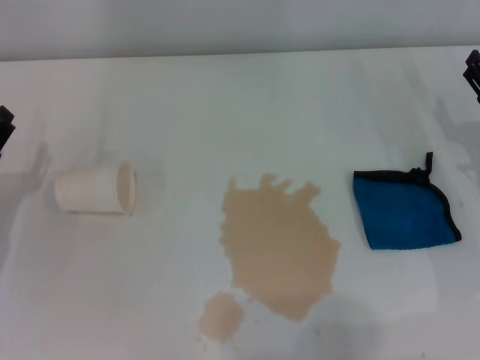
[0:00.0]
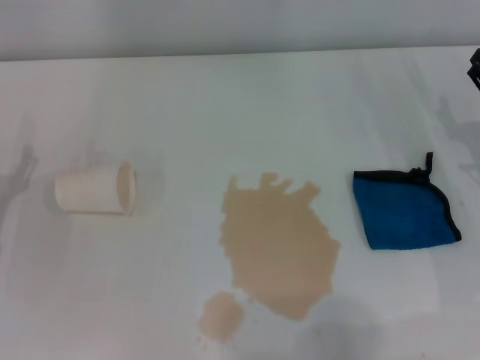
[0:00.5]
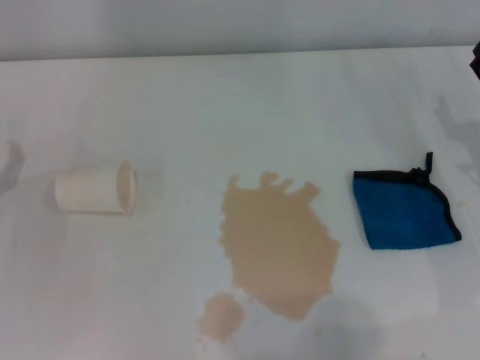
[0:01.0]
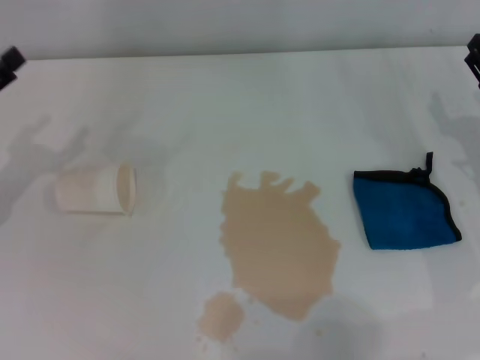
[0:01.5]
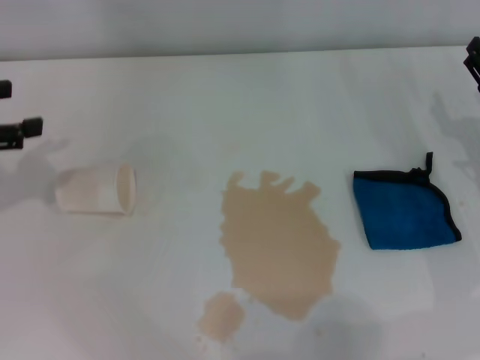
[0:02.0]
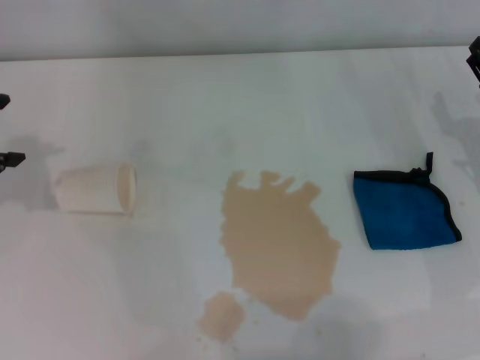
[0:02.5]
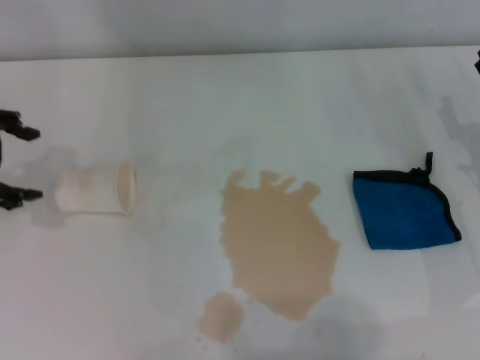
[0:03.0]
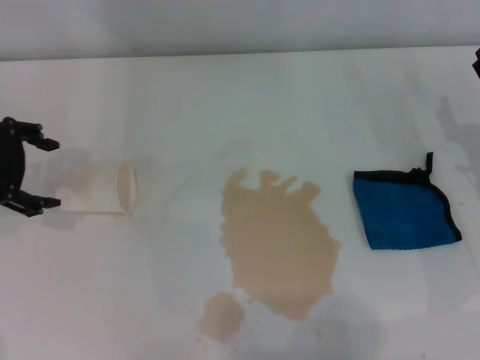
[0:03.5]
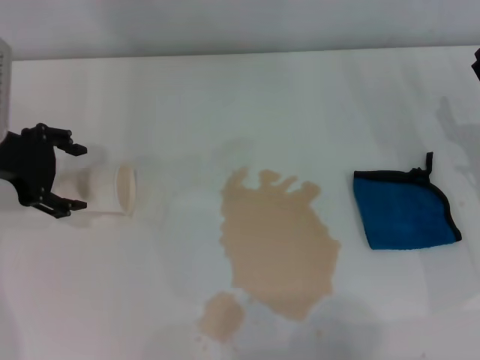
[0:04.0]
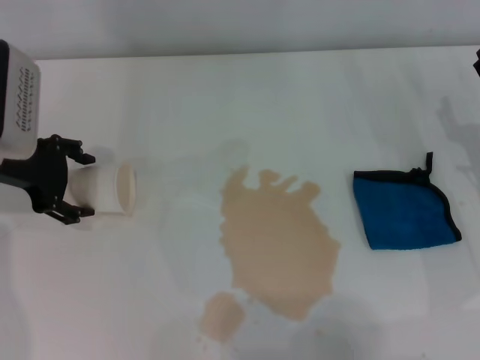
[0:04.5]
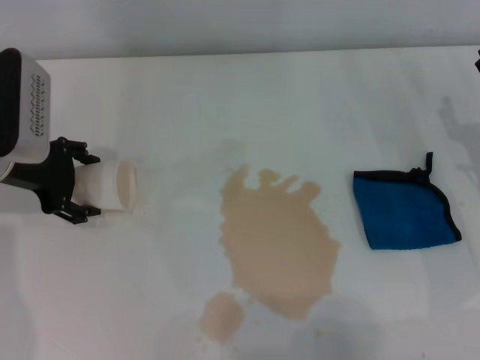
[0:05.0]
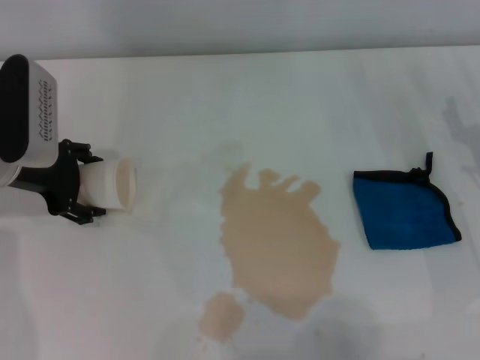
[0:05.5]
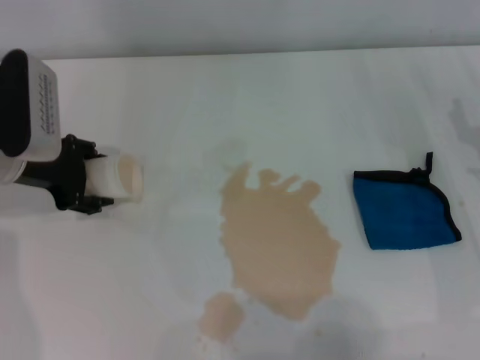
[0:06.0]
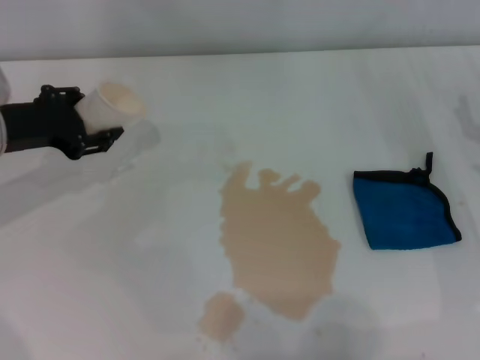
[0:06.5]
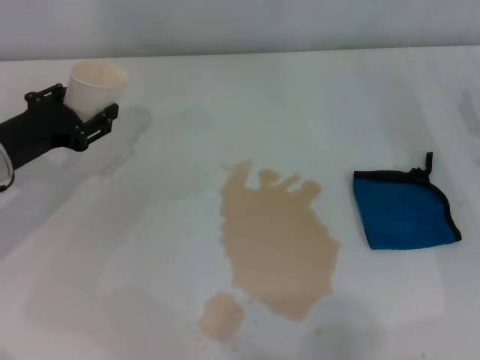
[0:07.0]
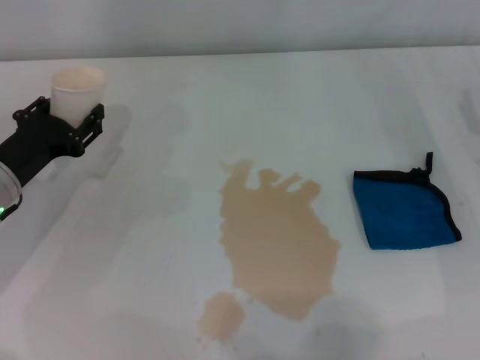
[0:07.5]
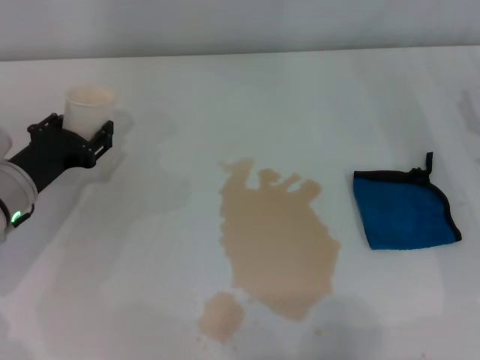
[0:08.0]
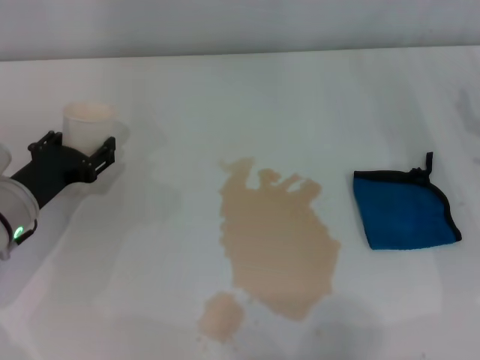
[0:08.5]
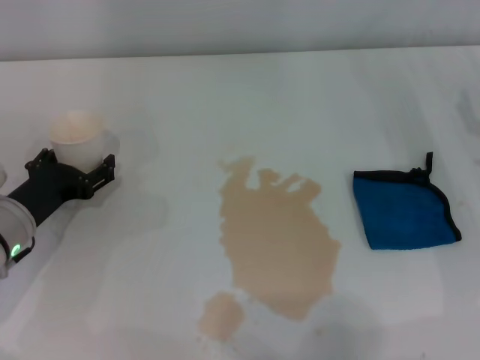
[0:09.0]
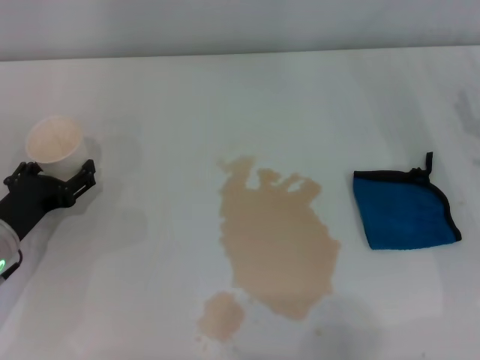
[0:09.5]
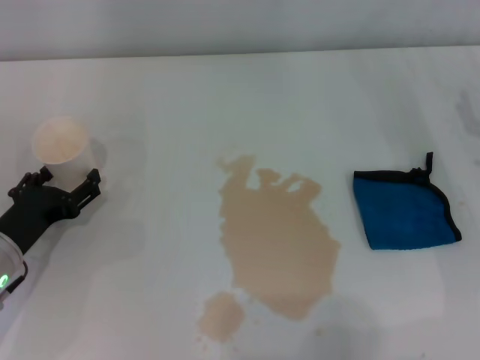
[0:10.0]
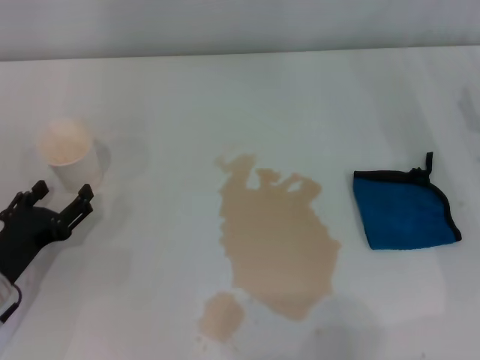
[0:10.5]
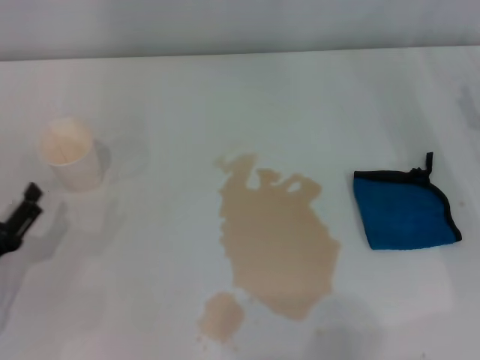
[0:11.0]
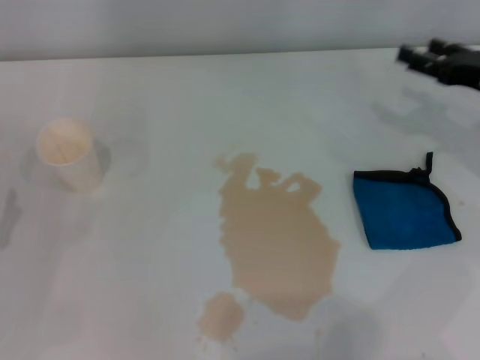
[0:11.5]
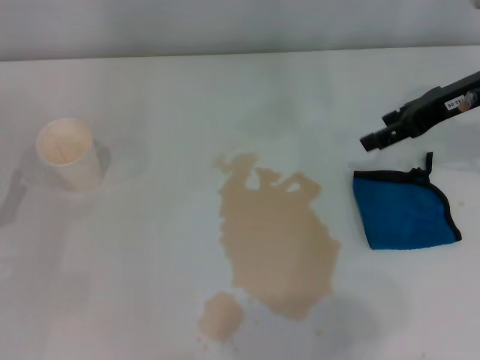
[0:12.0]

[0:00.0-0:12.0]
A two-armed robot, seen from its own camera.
Step, 0:00.0 to 0:05.0: Grasp the paper cup with the left gripper.
Step, 0:06.0 to 0:10.0: Stand the paper cup upright with the left gripper.
0:00.0 to 0:02.0: The left gripper is displaced upward by approximately 15 cm.
0:02.0 to 0:04.0: The left gripper is displaced to the right by approximately 10 cm.
0:04.0 to 0:06.0: The left gripper closes its fingers.
0:06.0 to 0:08.0: The left gripper is displaced downward by roughly 10 cm, and closes its fingers.
0:08.0 to 0:10.0: The left gripper moves backward, roughly 5 cm, and opens its fingers.
0:10.0 to 0:12.0: The left gripper heads to the left, covering some 5 cm. The right gripper shifts about 15 cm upward and forward.

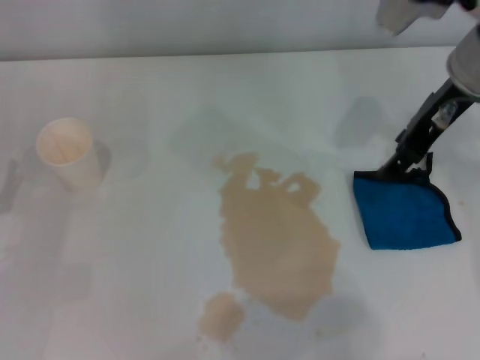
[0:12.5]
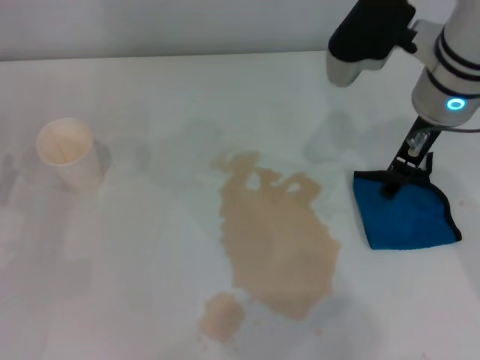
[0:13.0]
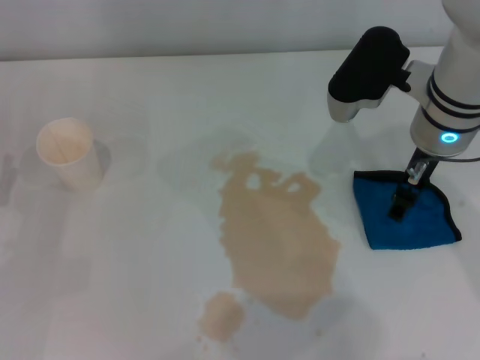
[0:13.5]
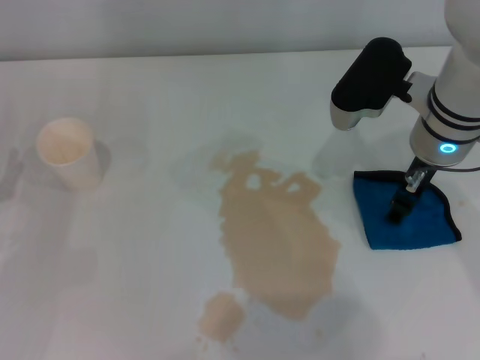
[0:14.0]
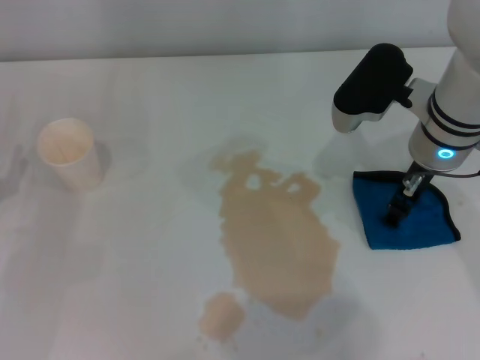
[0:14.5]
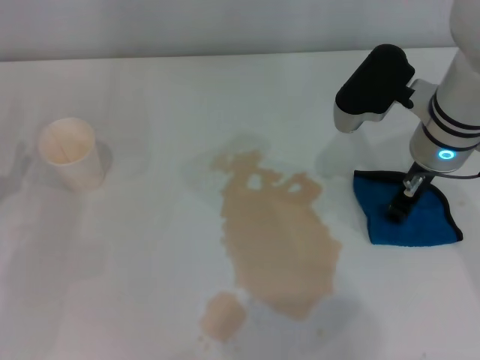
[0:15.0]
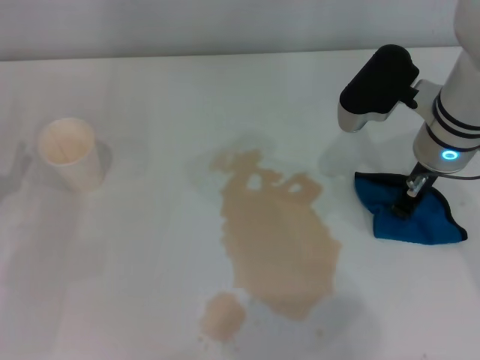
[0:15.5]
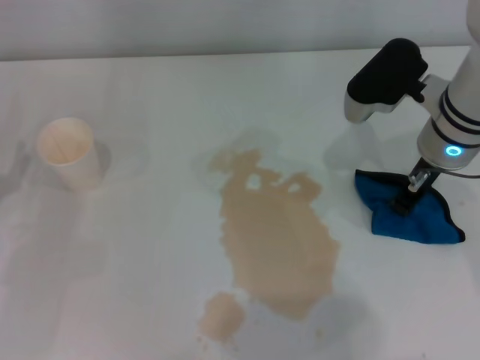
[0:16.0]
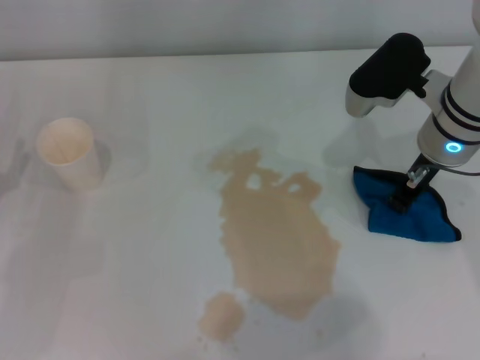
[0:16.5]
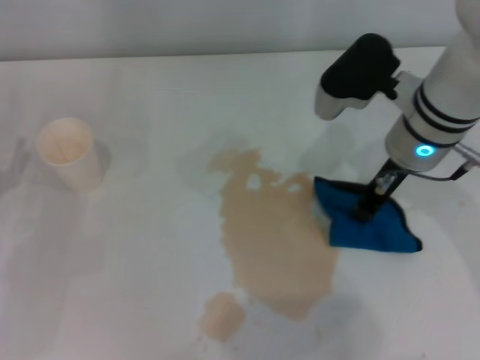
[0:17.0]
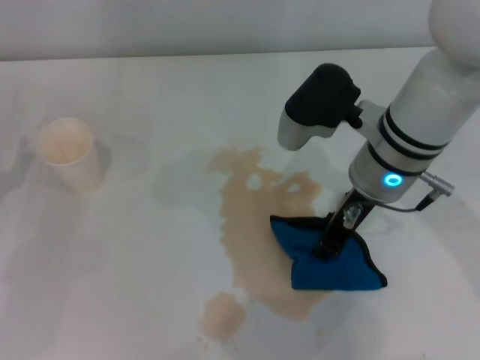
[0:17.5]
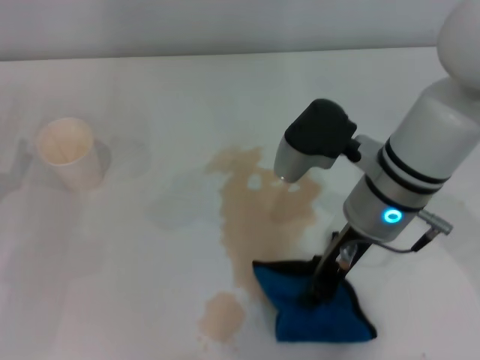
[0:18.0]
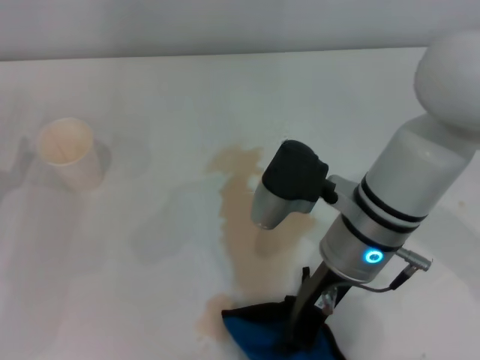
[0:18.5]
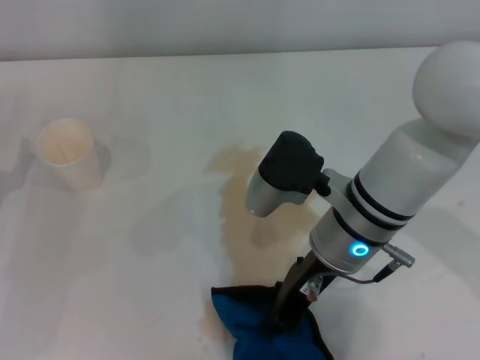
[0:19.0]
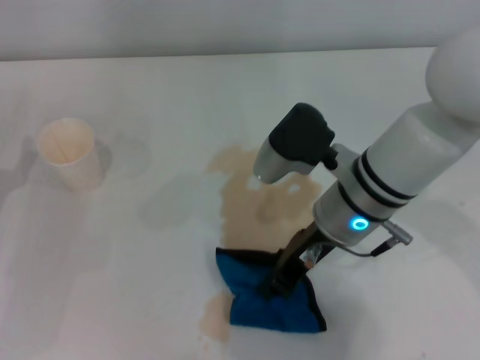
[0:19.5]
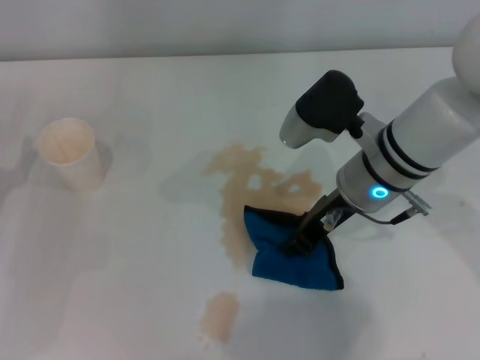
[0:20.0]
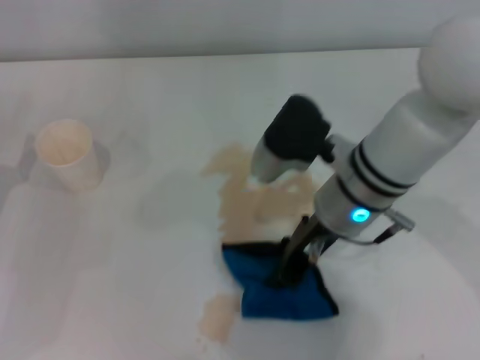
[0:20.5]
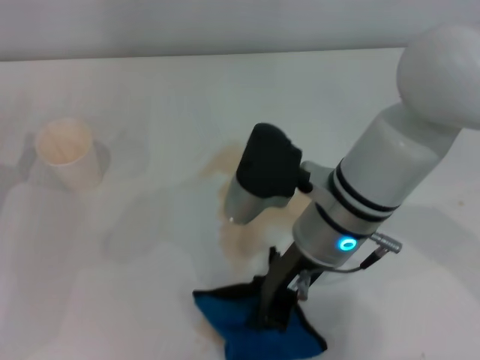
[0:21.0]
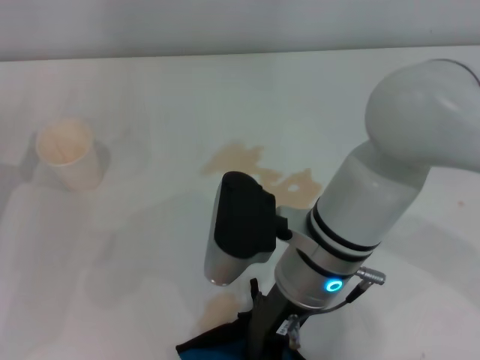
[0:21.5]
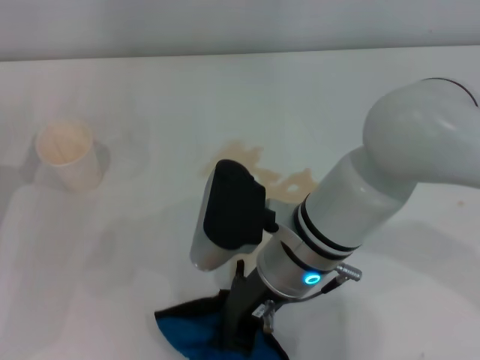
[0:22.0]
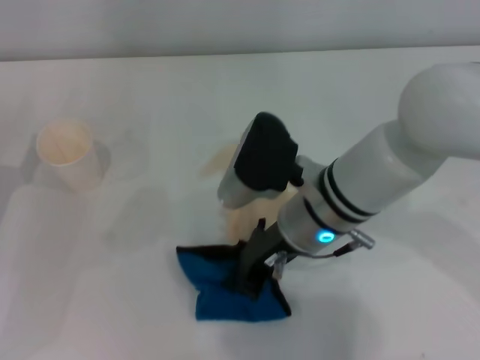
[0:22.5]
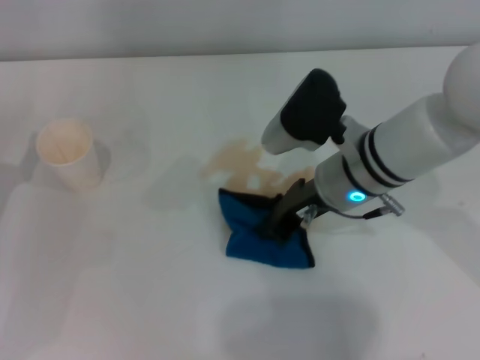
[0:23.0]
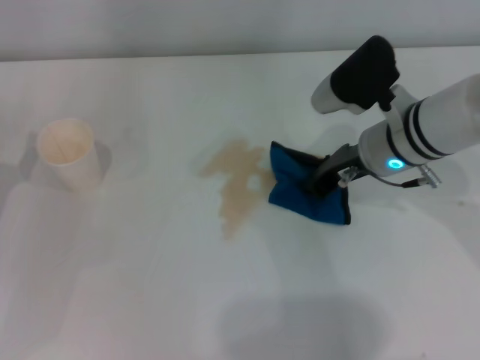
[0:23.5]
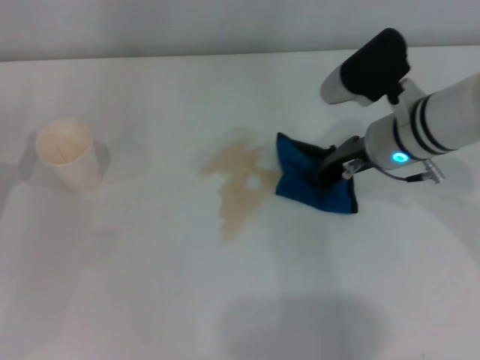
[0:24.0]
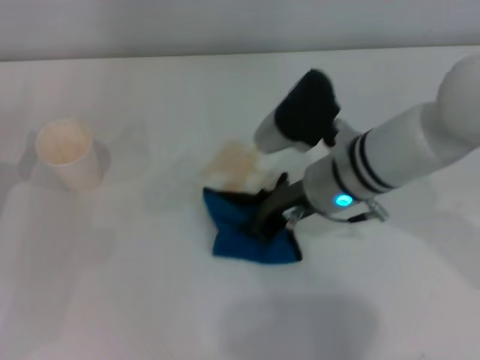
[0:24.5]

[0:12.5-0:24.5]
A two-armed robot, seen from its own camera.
0:12.5 to 0:14.5: The right gripper is displaced downward by approximately 10 cm.
0:14.5 to 0:16.5: The right gripper closes its fingers.
0:16.5 to 0:18.5: The right gripper moves to the left and backward, roughly 15 cm.

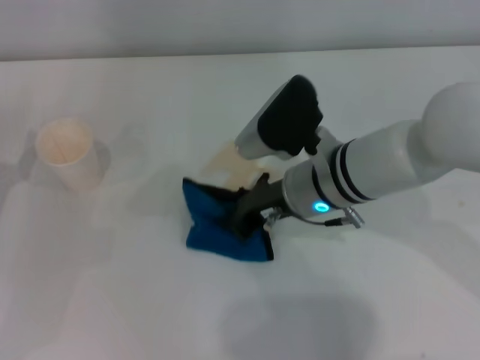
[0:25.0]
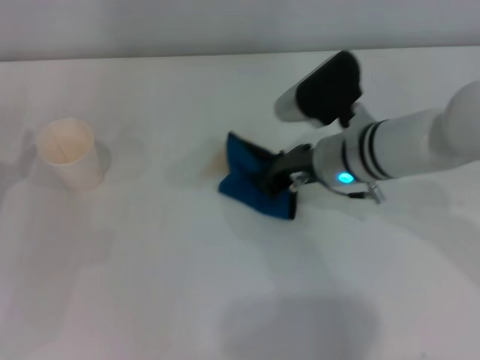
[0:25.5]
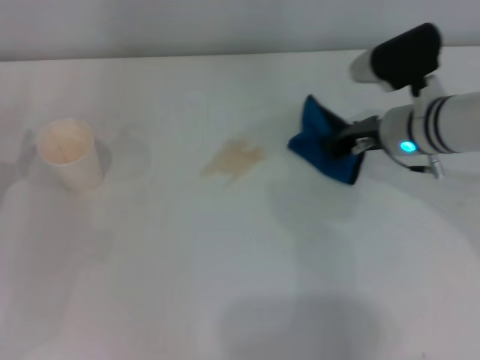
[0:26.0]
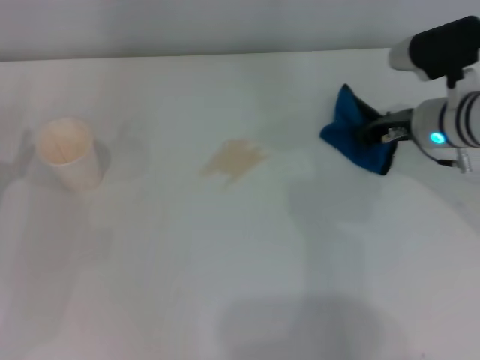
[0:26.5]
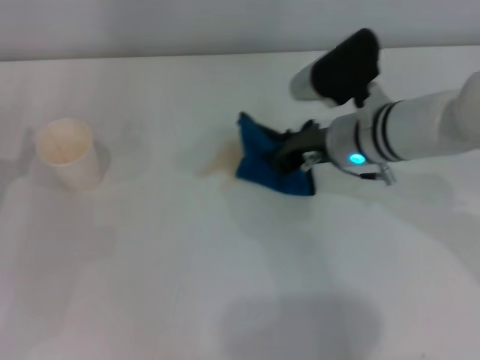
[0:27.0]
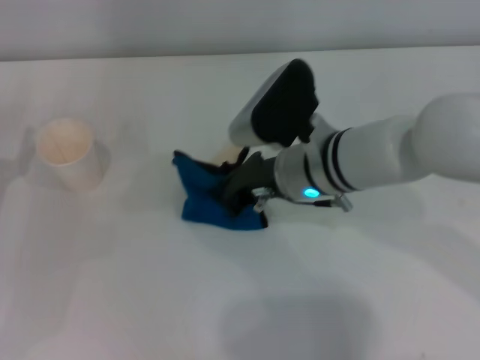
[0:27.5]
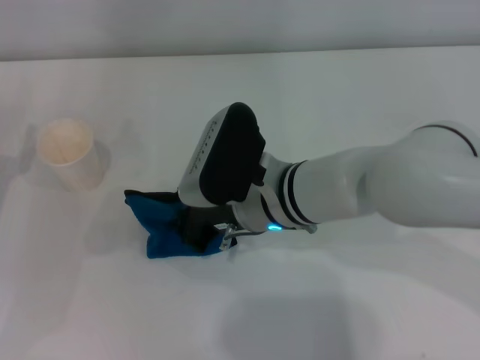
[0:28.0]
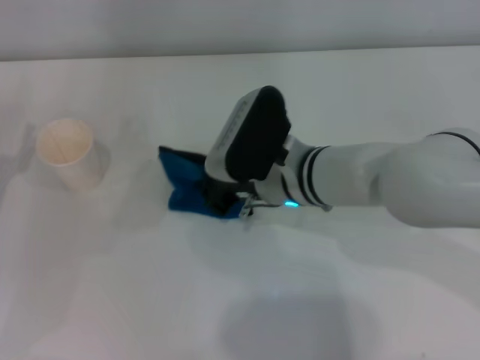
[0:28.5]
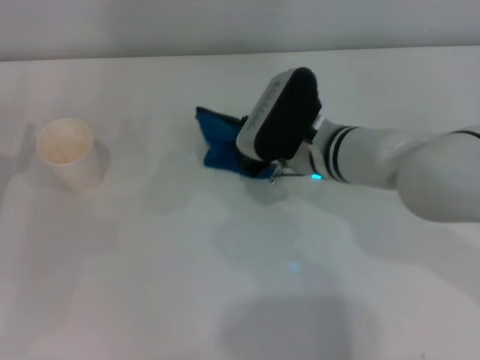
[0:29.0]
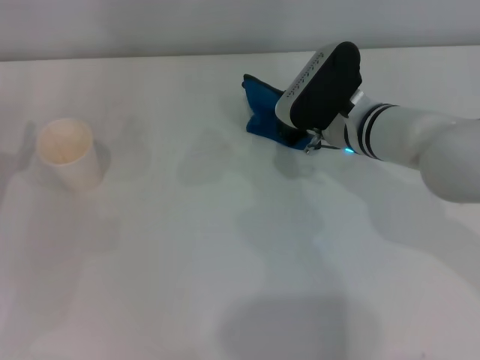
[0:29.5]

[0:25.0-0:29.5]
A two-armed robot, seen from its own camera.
0:25.0 to 0:27.0: The right gripper is displaced to the right by some 5 cm.
0:27.0 to 0:29.5: The right gripper reaches about 10 cm to the left, then returns.
